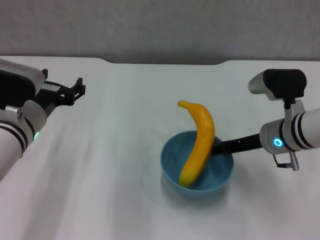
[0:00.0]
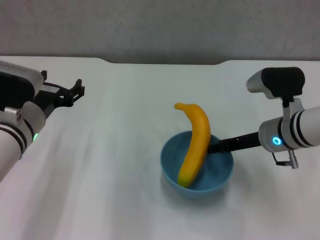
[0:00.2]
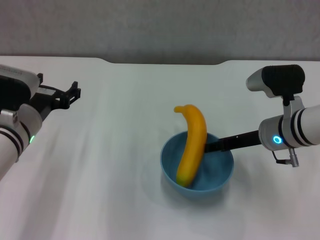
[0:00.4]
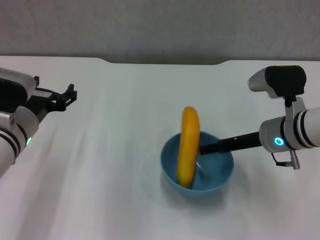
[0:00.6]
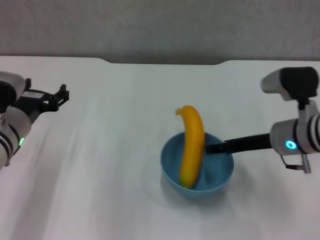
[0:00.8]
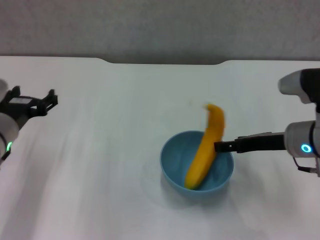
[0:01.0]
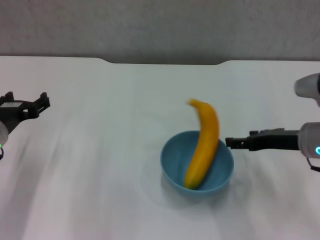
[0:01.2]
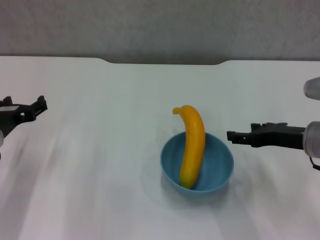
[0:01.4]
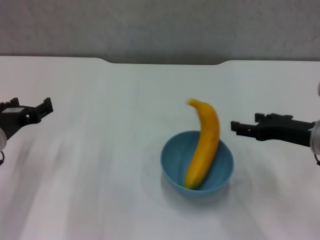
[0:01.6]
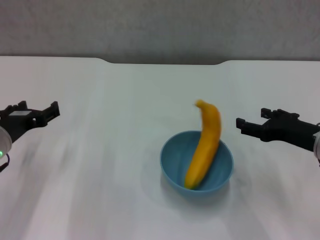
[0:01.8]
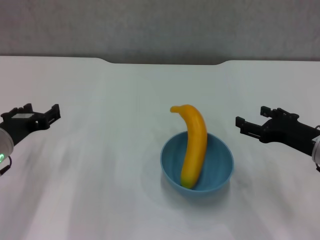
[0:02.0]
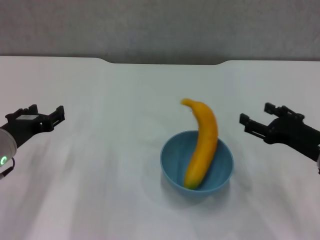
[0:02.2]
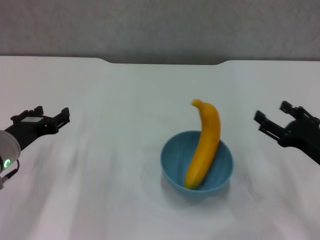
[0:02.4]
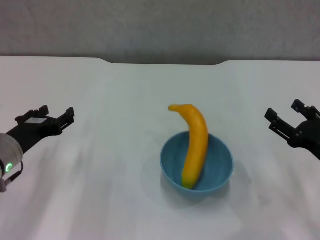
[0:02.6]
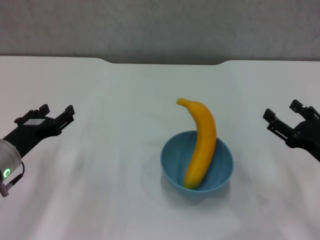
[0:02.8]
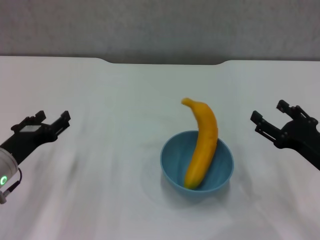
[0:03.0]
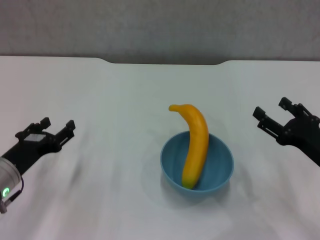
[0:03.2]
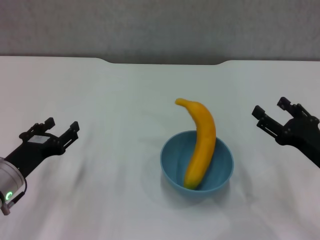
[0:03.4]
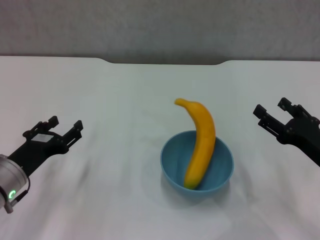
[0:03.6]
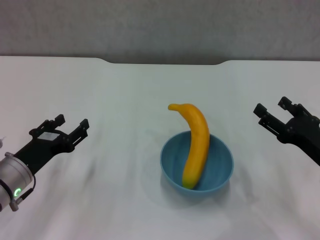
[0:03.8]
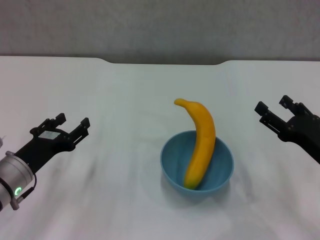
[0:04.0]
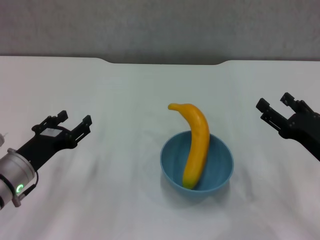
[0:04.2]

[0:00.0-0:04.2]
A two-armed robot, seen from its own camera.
0:00.0 to 0:01.4: The right gripper goes approximately 5 cm to the right, and opens up. The left gripper is displaced to the left by about 5 cm.
0:01.4 to 0:02.8: The right gripper goes some 10 cm backward and downward; the left gripper closes its fingers.
0:02.8 to 0:04.2: The grippers make only small movements.
